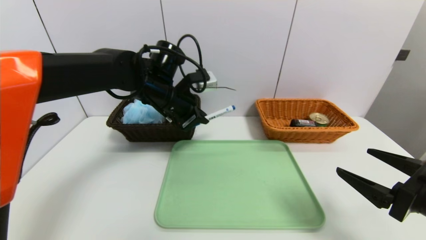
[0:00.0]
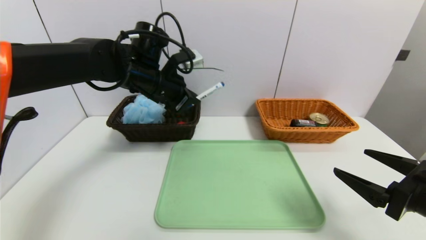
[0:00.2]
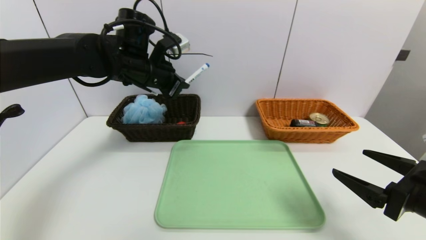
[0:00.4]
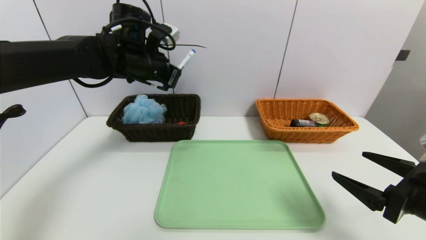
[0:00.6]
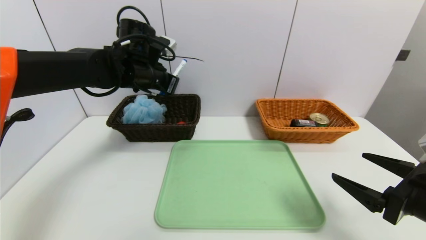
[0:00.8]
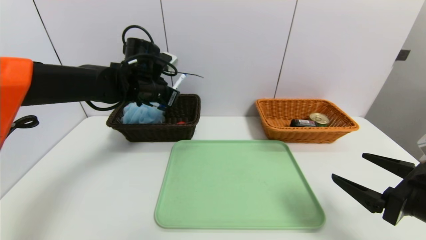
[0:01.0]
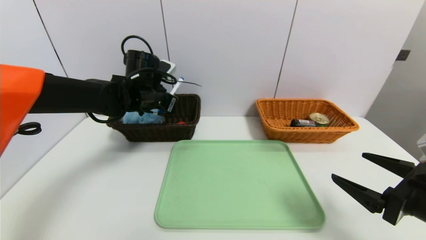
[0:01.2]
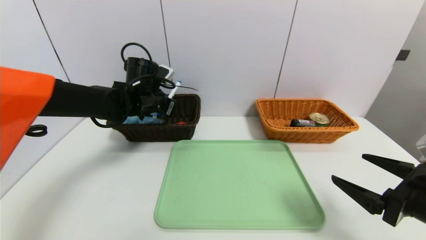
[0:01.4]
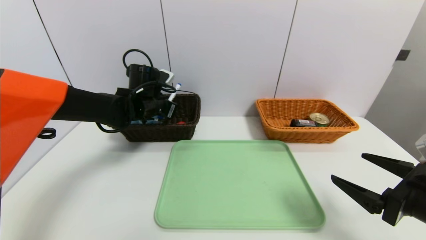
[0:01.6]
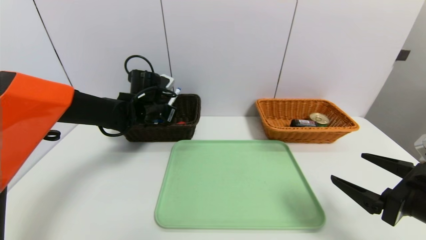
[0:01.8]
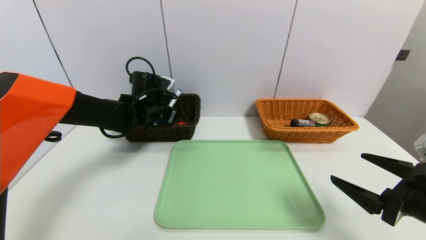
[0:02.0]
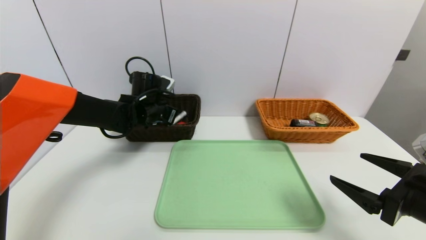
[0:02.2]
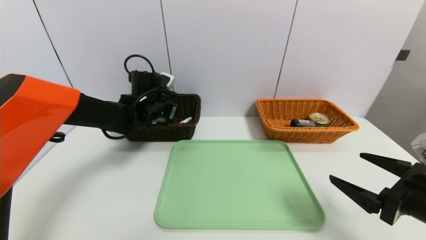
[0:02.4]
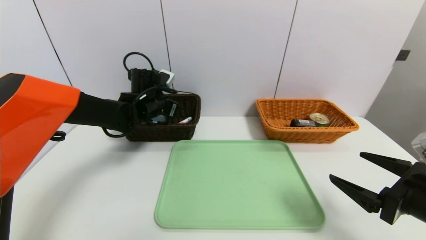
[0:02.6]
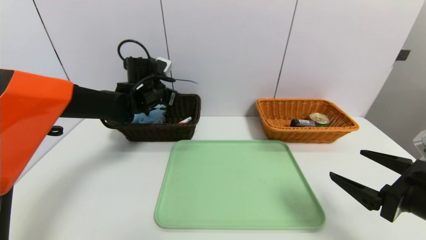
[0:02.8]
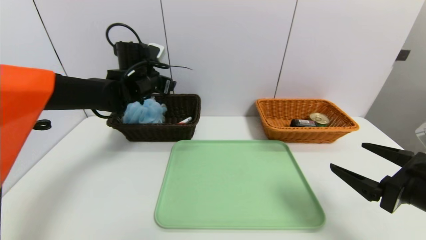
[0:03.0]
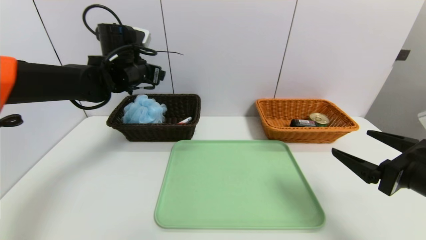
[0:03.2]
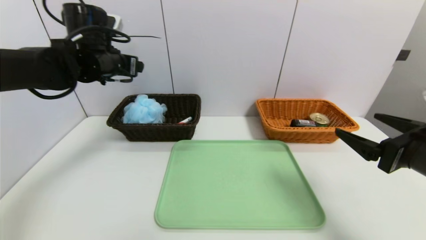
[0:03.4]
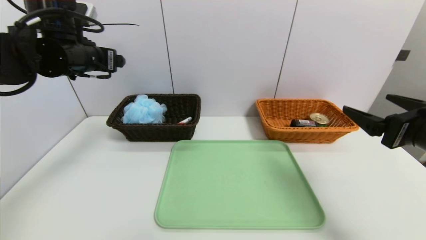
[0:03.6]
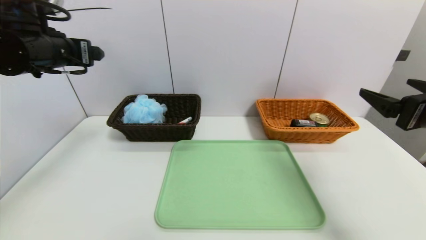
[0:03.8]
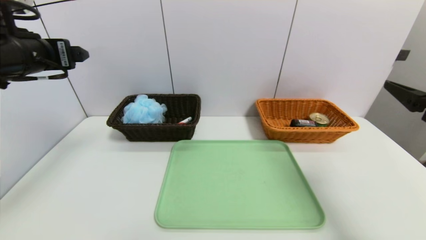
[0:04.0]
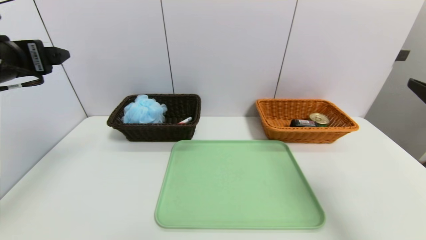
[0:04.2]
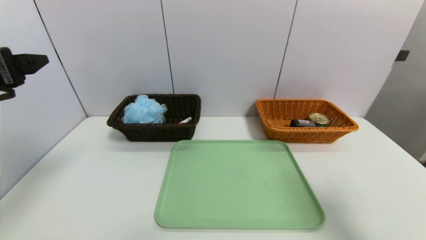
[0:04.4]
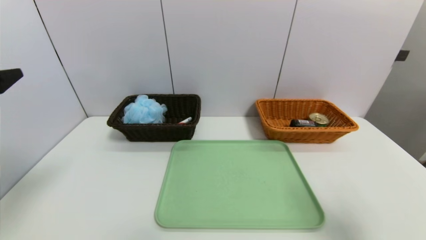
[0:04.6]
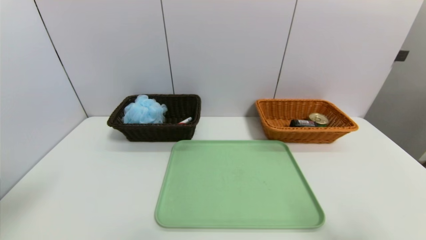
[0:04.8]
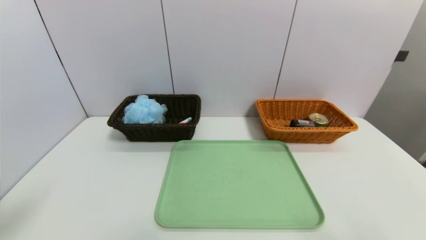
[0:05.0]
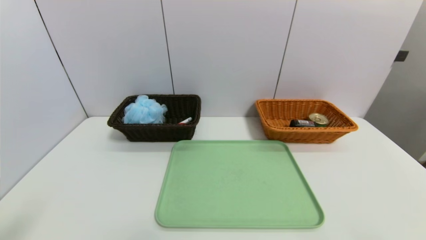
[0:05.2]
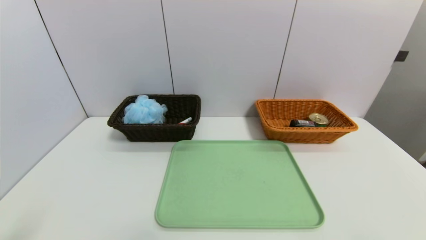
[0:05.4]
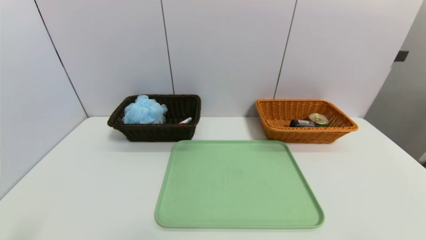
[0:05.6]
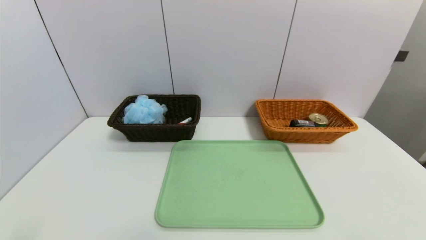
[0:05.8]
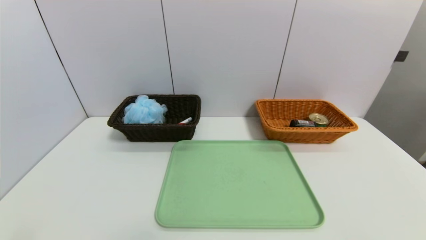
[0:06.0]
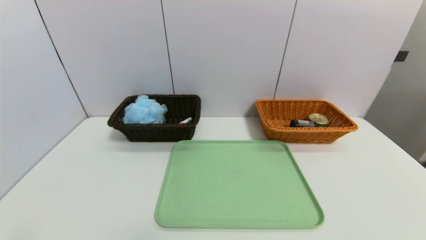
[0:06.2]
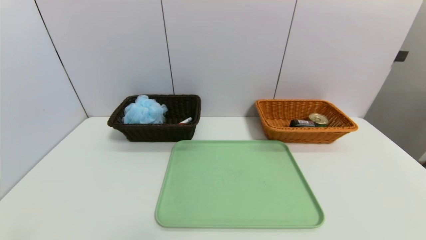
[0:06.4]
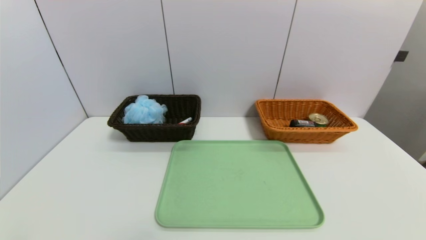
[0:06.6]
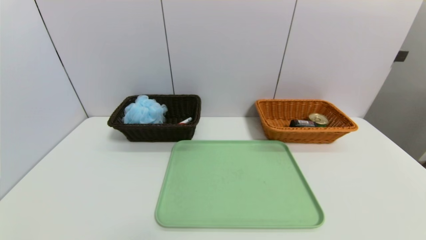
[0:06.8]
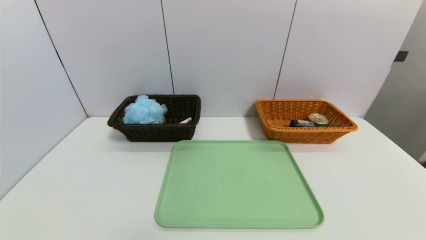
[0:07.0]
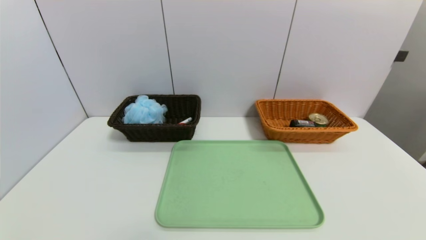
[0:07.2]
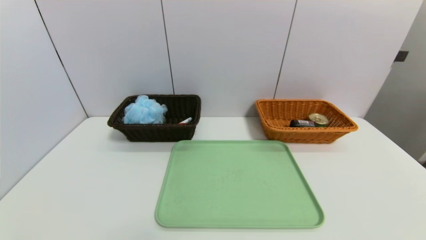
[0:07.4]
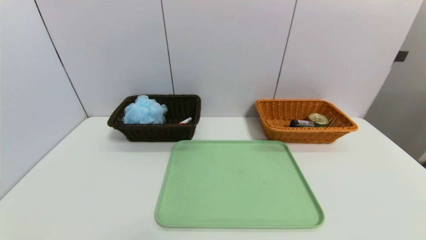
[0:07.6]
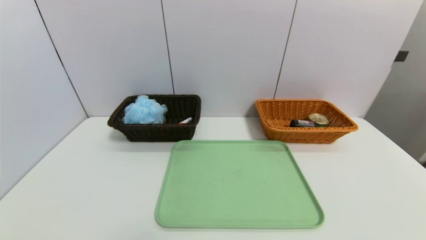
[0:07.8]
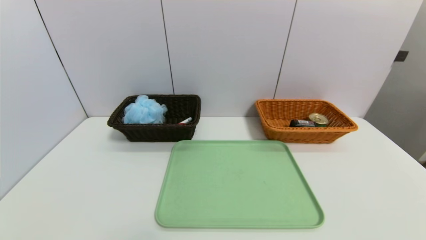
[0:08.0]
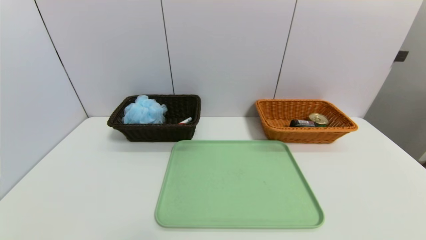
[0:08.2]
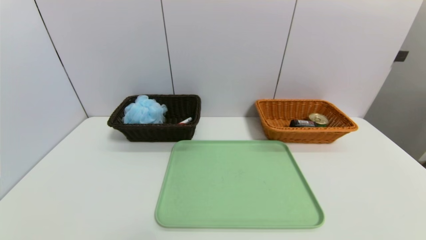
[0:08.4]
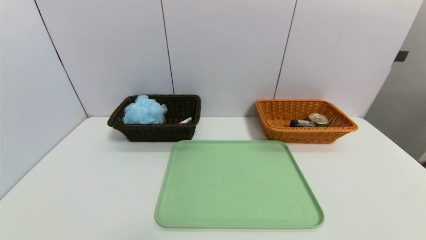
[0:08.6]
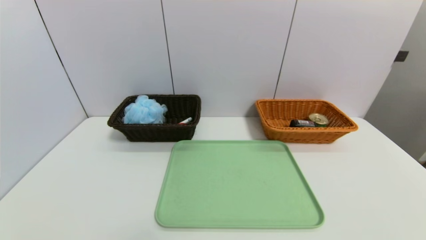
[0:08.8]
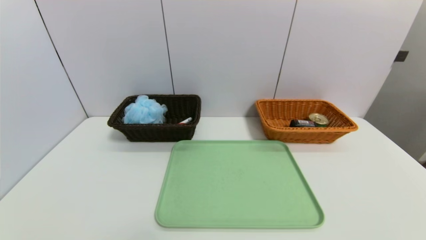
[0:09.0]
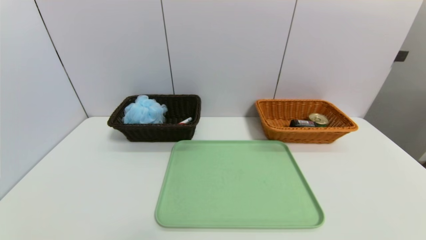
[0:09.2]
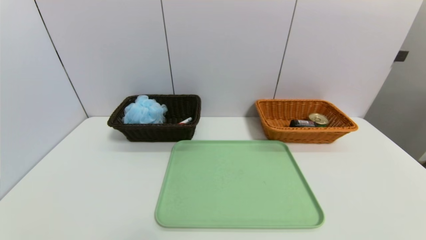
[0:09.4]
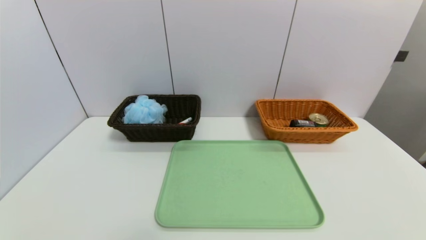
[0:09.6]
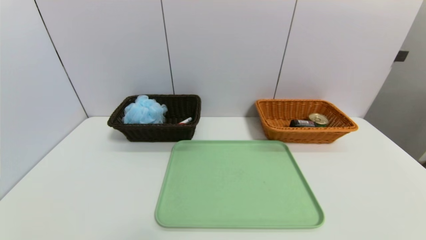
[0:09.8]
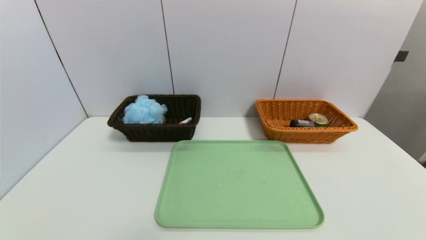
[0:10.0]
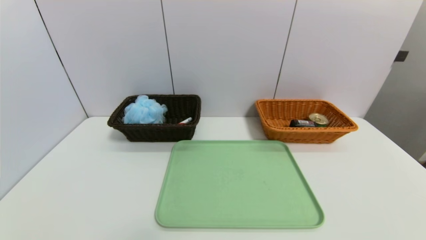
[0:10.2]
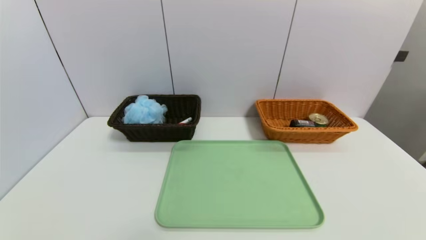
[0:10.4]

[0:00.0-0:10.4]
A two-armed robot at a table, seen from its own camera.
Task of the whole recording: place the food in the right basket with the right gripper, and place the non food items in the left basket with the left gripper.
Step, 0:00.0 to 0:02.6: Grasp the blue marker and put it in the left basket.
0:00.0 to 0:01.4: The left gripper travels to the left by about 5 cm.
0:01.4 to 0:03.0: The left gripper opens.
0:03.0 to 0:04.4: The left gripper travels backward and to the left by approximately 30 cm. Meanwhile the right gripper travels upward by about 10 cm.
0:04.4 to 0:06.0: The left gripper moves backward and downward, roughly 25 cm; the right gripper shifts some 15 cm backward and downward.
0:09.0 to 0:10.4: The two grippers keep their place.
